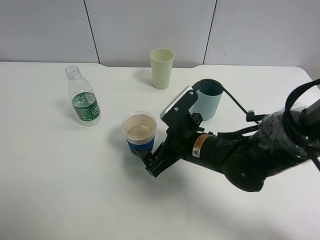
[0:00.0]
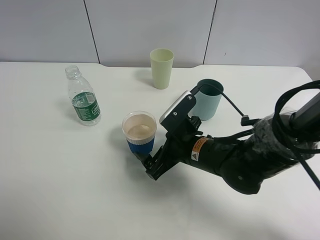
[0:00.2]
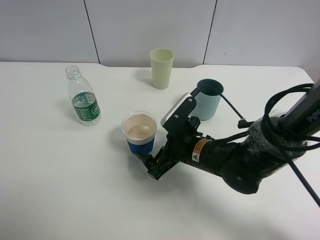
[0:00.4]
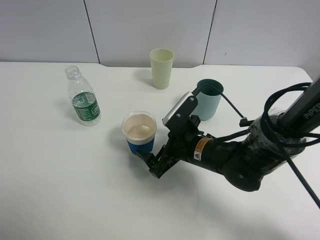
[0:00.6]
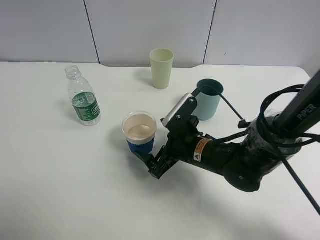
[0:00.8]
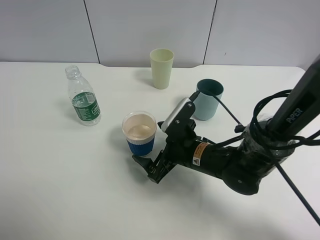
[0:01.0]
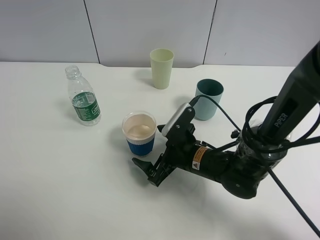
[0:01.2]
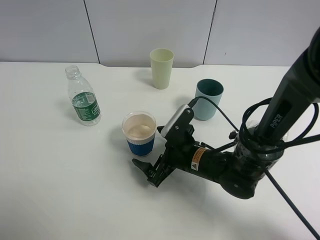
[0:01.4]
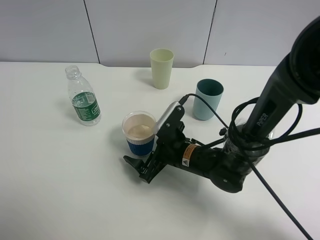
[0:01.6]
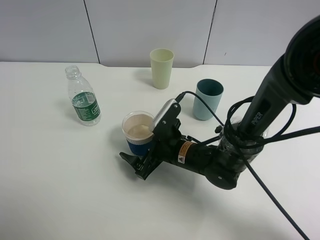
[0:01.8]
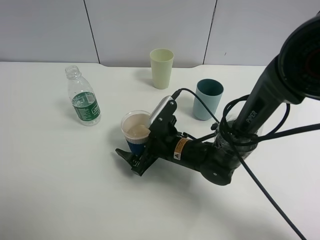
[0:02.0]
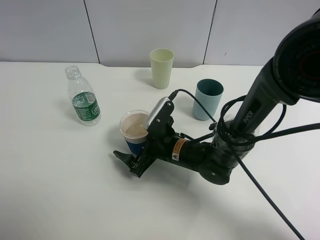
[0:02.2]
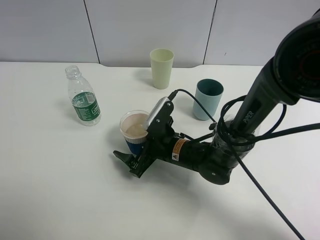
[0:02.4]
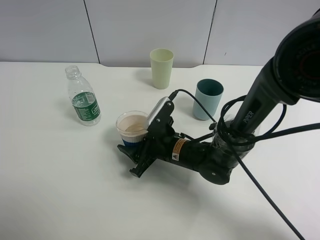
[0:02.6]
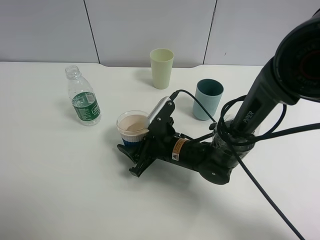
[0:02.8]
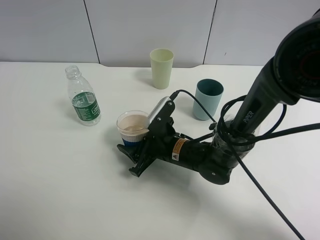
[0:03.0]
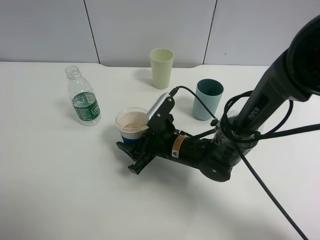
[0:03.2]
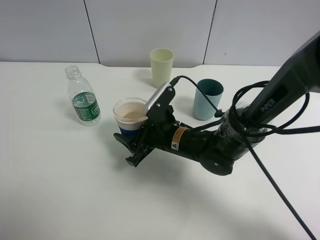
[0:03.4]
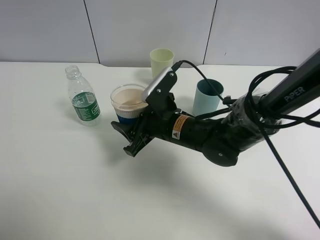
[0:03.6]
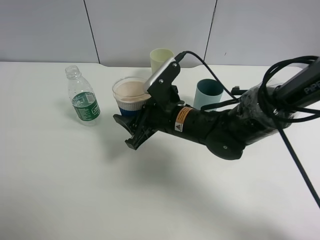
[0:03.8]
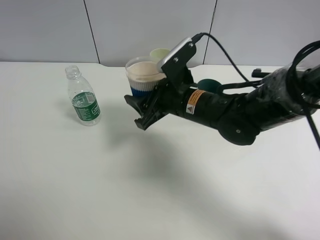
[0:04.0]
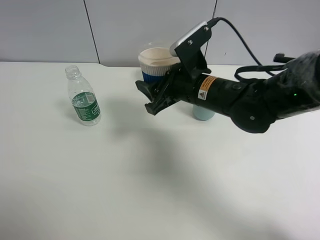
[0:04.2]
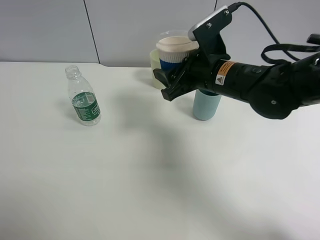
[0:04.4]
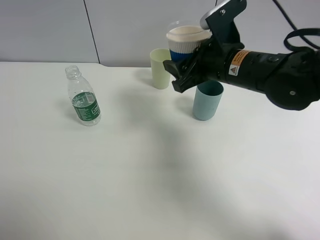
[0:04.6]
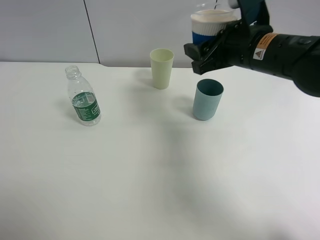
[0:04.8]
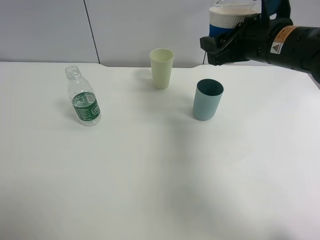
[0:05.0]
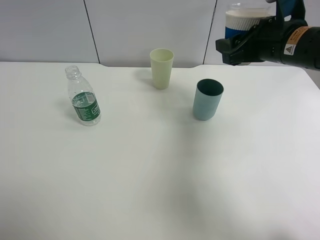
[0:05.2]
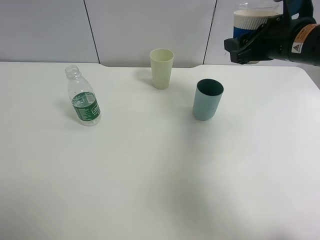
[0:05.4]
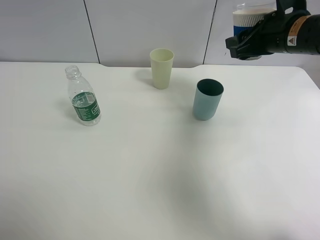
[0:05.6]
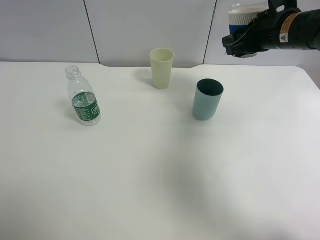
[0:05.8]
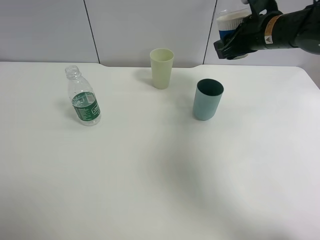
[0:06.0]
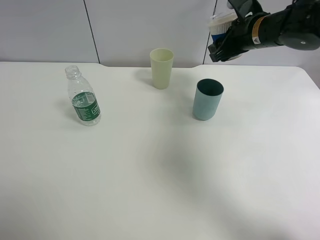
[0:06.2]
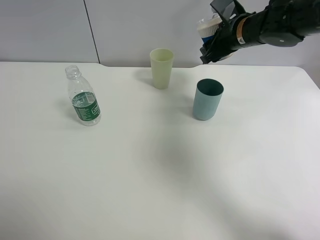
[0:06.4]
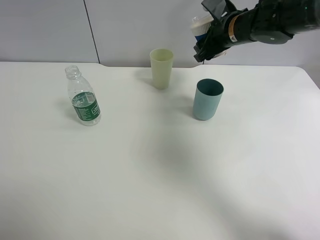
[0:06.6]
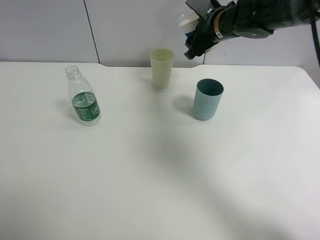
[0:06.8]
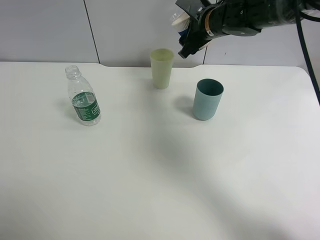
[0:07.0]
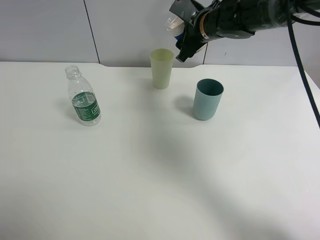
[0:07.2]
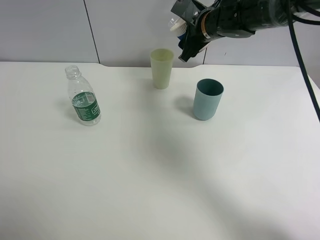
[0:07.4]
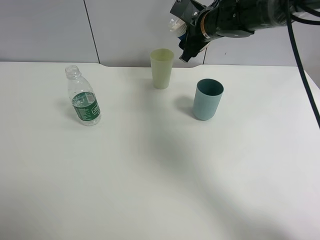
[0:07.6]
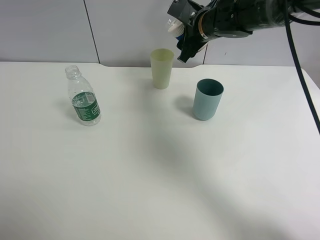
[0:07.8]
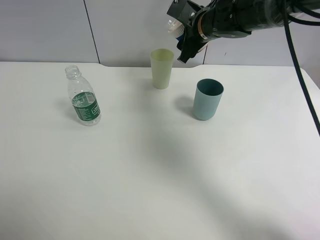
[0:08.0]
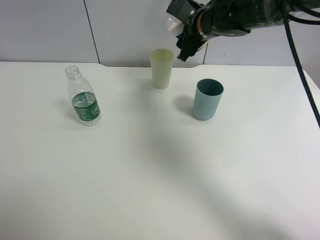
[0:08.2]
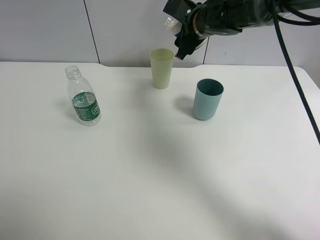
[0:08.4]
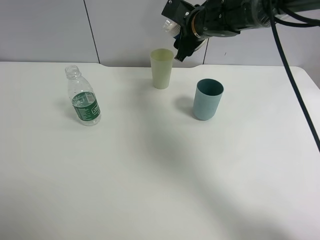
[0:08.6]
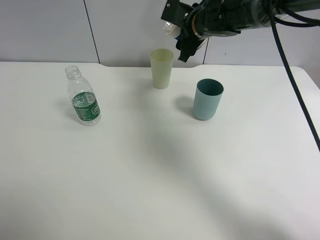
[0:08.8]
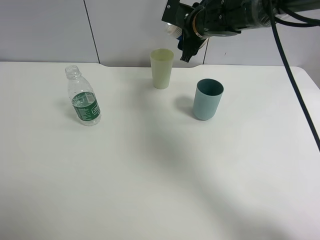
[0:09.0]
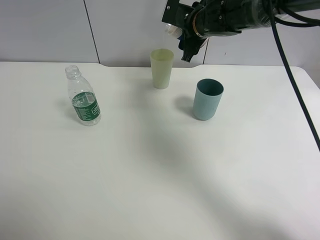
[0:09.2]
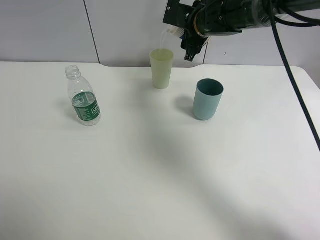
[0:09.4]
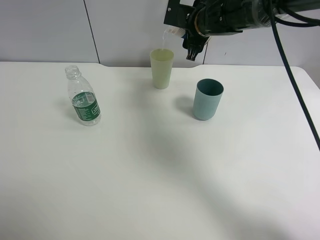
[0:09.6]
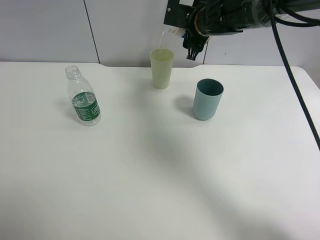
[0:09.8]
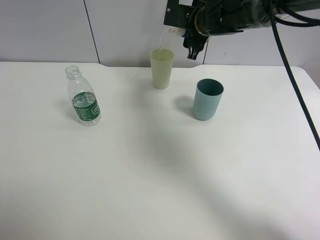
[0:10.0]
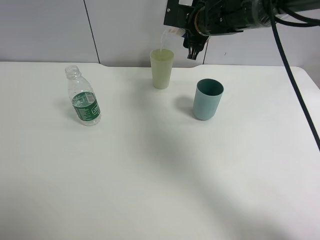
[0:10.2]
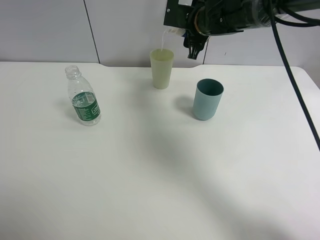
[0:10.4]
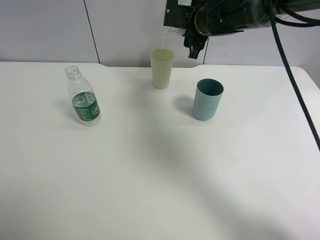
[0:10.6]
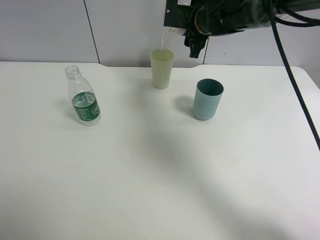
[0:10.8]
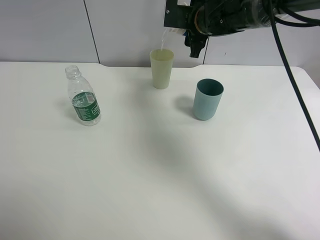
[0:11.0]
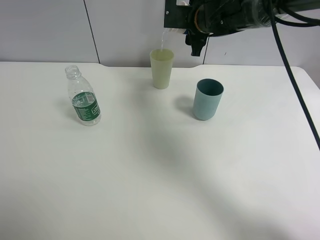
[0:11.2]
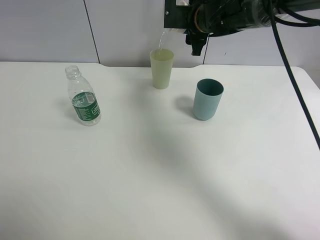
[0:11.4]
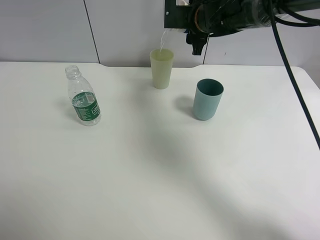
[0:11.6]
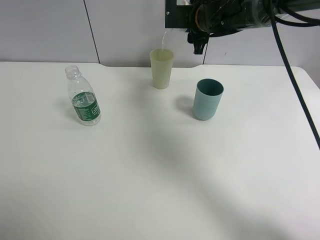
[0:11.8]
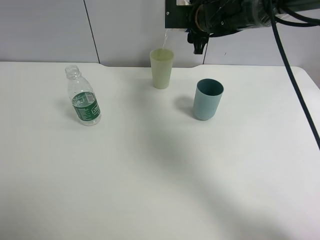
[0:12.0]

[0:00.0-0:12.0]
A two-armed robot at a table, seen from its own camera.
Task of the whole recording: use a clamp to hold the bottle of the drink, pour the beverage into a random cup, then clamp the cup containing the drink and pour the drink into another random cup.
Step, 0:00.0 to 0:03.6: Pick up the paper cup with right gripper.
0:00.0 to 0:01.6: The right gripper heads downward, covering roughly 5 cm.
0:01.6 to 0:03.0: The right gripper closes its fingers.
0:03.0 to 0:04.4: The right gripper heads upward and to the right, covering about 20 cm.
0:04.4 to 0:06.0: The right gripper moves to the right and forward, approximately 15 cm.
0:06.0 to 0:07.6: The right gripper heads to the left and forward, covering roughly 10 cm.
0:07.6 to 0:09.0: There are only small adjustments of the grippers.
0:09.0 to 0:10.4: There are only small adjustments of the grippers.
0:10.4 to 0:12.0: The grippers make only small movements.

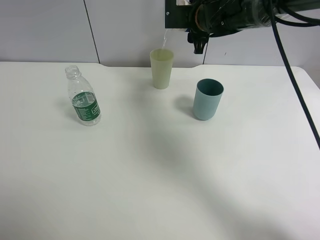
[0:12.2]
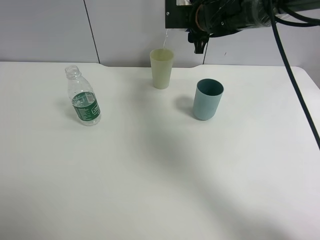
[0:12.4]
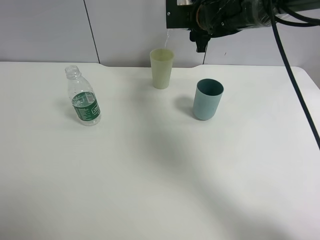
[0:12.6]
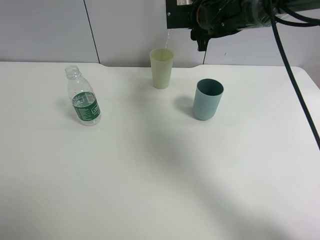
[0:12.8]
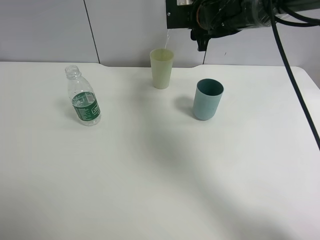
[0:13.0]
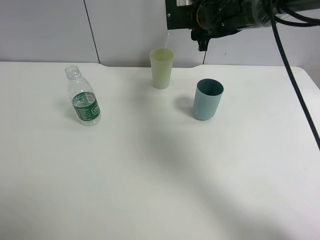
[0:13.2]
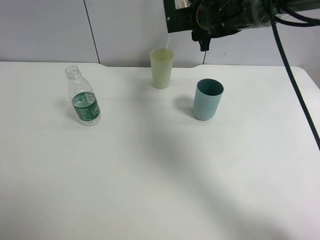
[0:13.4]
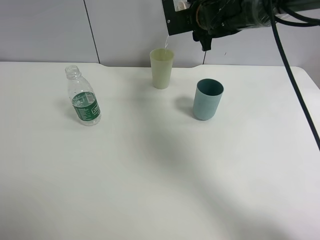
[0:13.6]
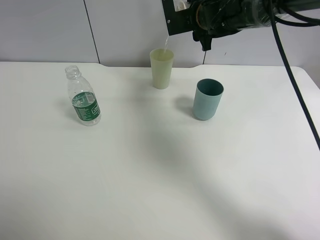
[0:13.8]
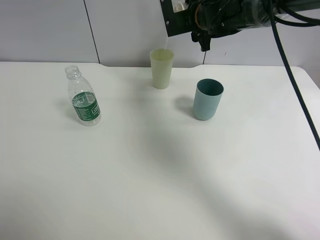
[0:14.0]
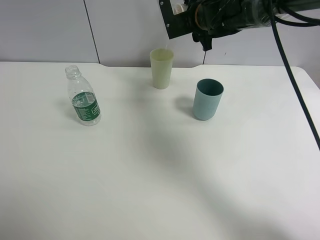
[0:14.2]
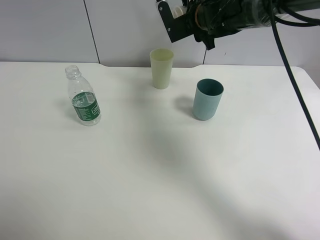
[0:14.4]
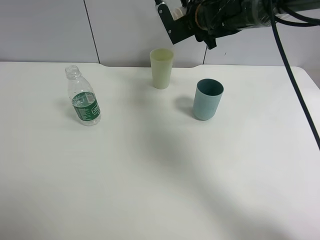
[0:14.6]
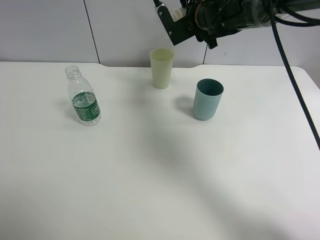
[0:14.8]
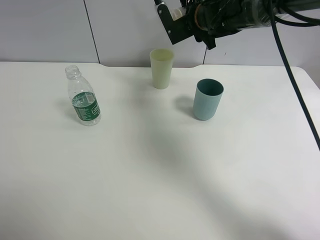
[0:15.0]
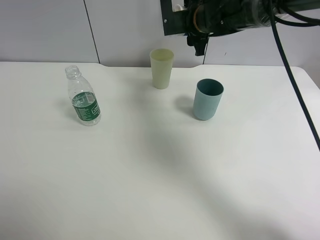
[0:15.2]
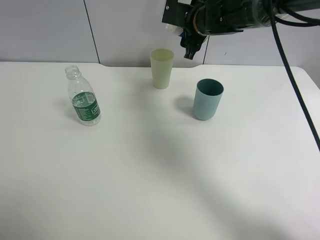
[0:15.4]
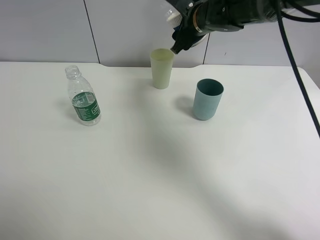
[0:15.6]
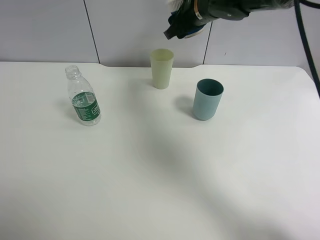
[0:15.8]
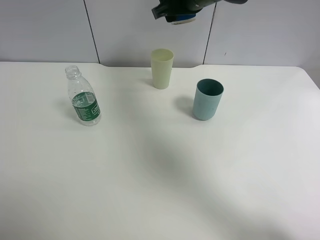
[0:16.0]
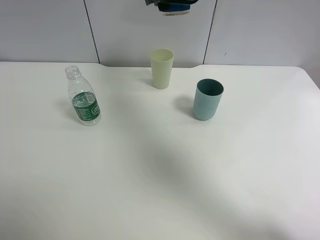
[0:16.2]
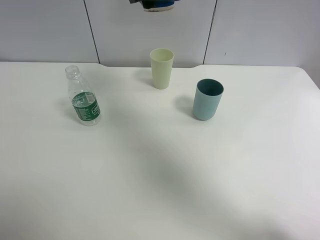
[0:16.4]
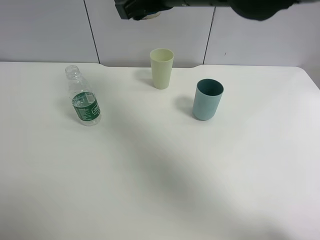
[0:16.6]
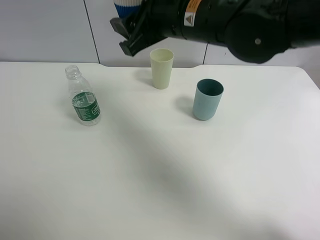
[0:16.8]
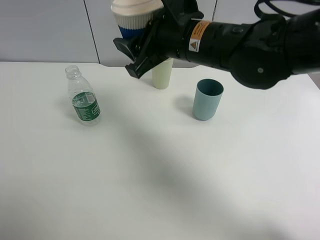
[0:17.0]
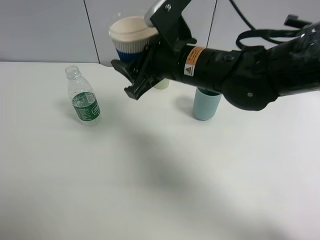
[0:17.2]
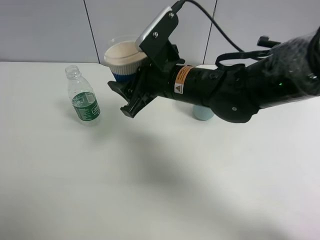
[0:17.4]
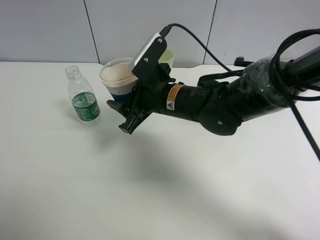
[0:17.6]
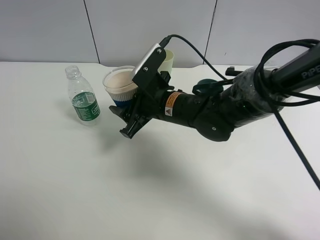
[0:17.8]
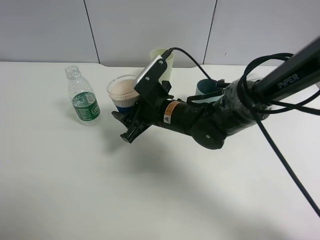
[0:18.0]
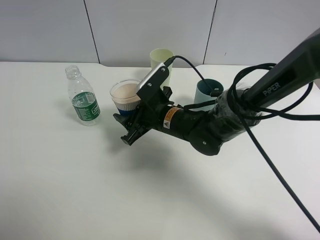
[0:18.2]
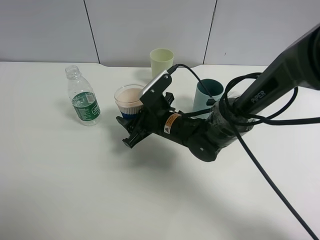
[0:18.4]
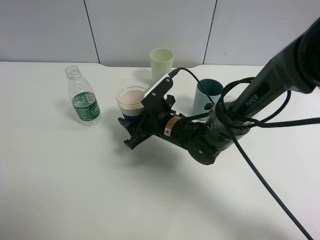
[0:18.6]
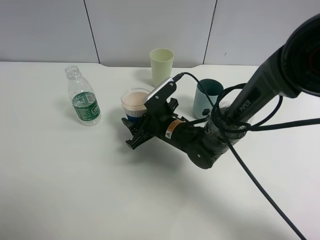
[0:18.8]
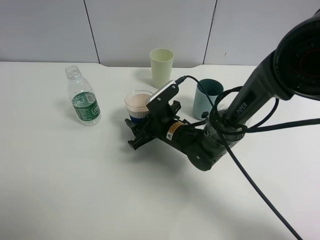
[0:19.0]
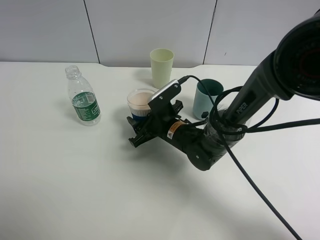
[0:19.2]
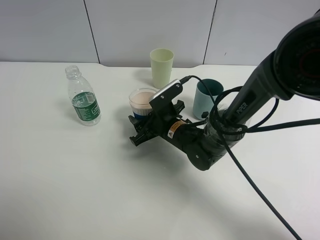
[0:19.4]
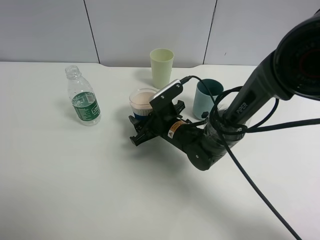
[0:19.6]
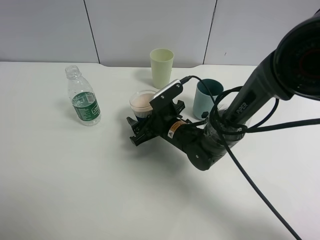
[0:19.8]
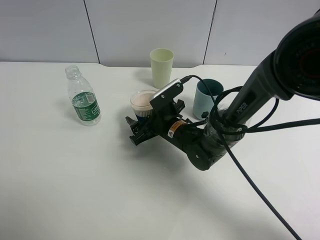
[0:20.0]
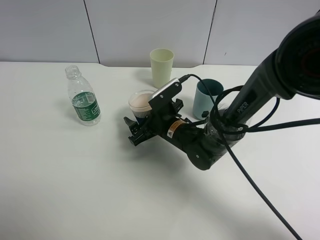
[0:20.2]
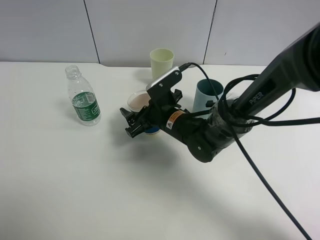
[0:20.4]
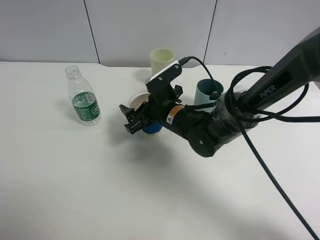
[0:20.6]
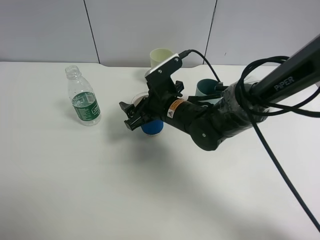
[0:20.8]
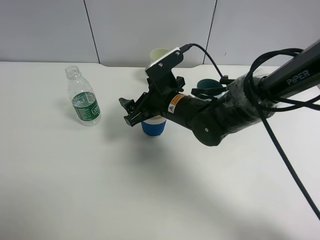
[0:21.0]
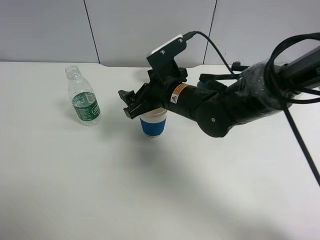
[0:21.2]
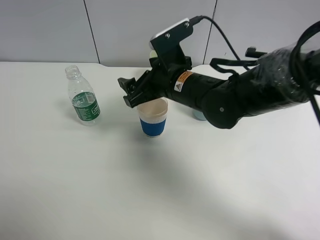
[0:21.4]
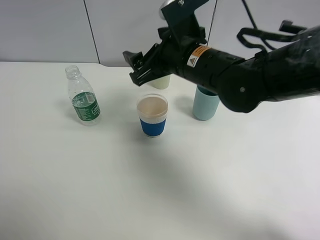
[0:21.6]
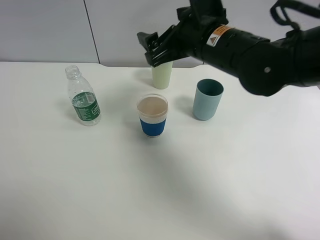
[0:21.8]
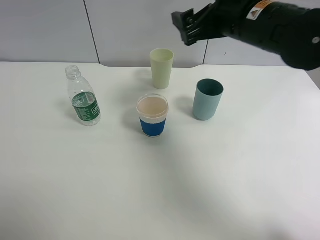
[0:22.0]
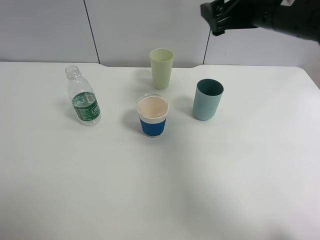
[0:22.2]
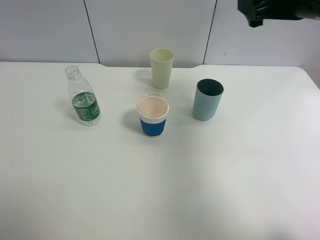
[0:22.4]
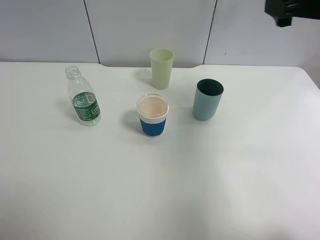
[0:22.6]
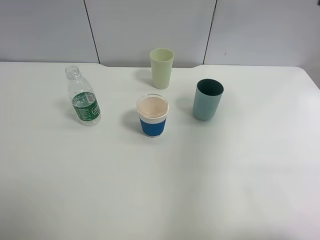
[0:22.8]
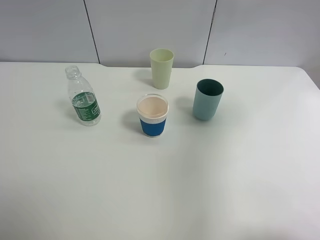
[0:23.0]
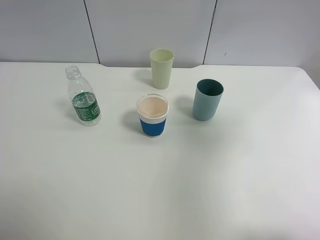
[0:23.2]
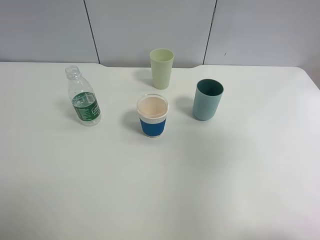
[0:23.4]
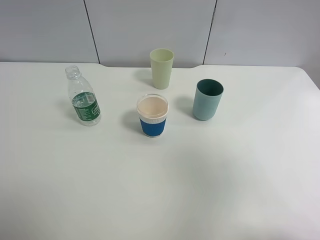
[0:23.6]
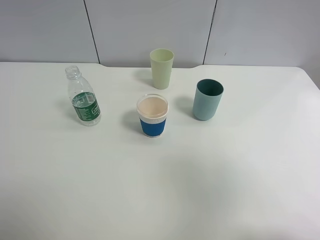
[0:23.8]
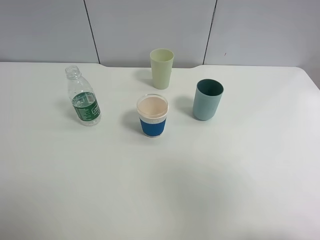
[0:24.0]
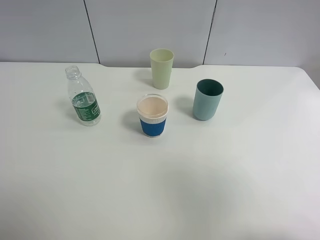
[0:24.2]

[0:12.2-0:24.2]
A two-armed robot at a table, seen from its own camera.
Task of the whole recording: use a clamp to hold the bottle of the drink, pour the beverage into a random cup, then clamp the cup containing the drink and pour the drink into another random cup.
Step, 0:12.2 to 0:15.6: Pour water into the green plastic cup with right gripper.
Step, 0:15.8 to 0:21.2: Place the paper cup on the table with right gripper.
0:12.2 to 0:13.8: The grippers make only small movements.
0:13.8 to 0:15.2: The grippers move only a little.
0:15.2 to 0:16.6: The right gripper goes roughly 20 cm backward, upward and to the left.
0:16.6 to 0:18.2: The right gripper is displaced downward by about 25 cm.
0:18.2 to 0:19.8: The right gripper opens its fingers.
0:19.8 to 0:21.2: The right gripper moves upward, approximately 10 cm.
0:21.2 to 0:22.6: The right gripper goes some 30 cm to the right and upward.
0:22.6 to 0:24.2: The right gripper travels backward by some 30 cm.
